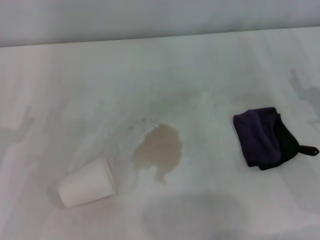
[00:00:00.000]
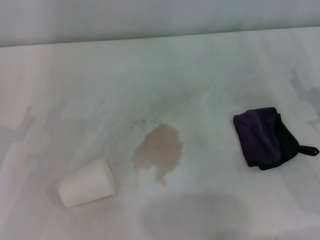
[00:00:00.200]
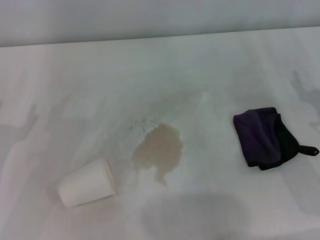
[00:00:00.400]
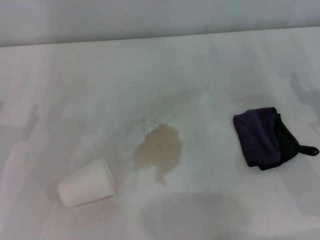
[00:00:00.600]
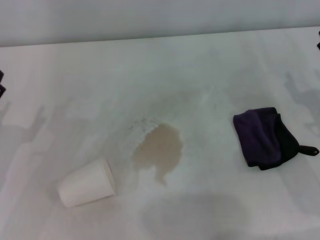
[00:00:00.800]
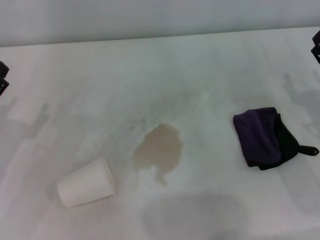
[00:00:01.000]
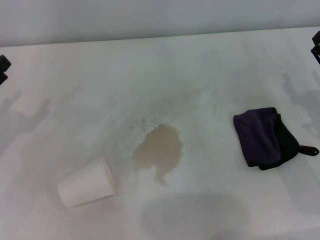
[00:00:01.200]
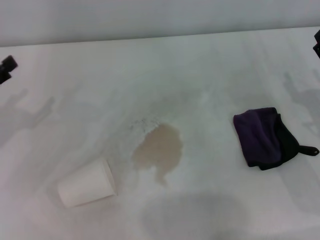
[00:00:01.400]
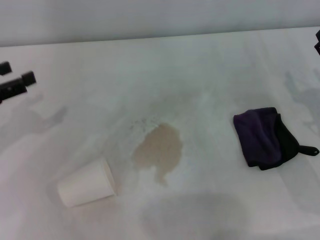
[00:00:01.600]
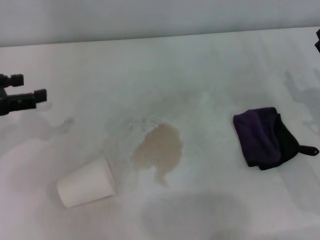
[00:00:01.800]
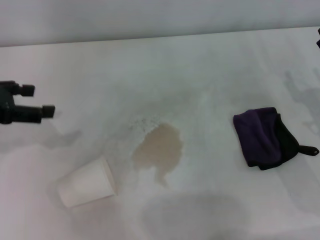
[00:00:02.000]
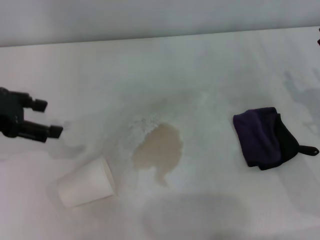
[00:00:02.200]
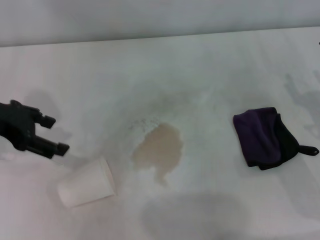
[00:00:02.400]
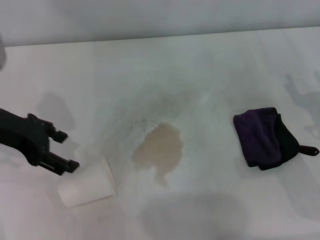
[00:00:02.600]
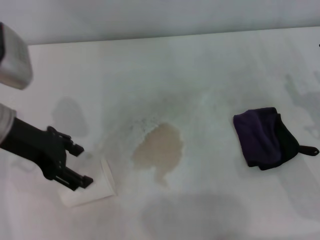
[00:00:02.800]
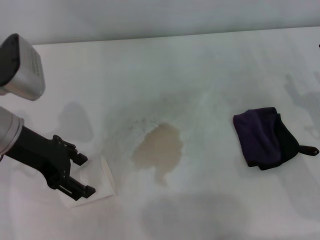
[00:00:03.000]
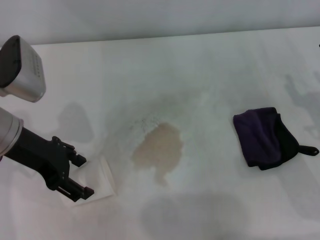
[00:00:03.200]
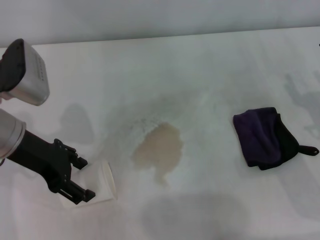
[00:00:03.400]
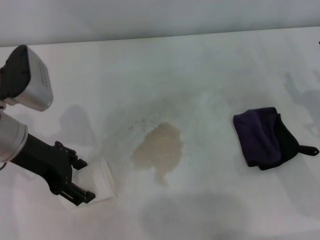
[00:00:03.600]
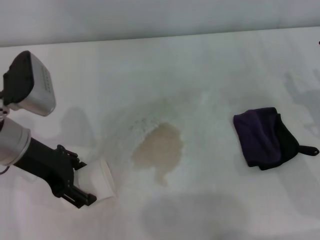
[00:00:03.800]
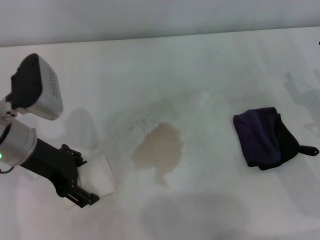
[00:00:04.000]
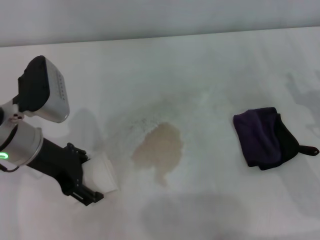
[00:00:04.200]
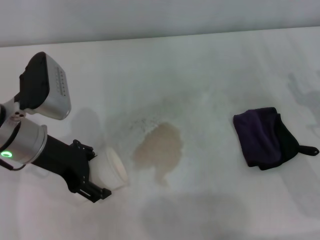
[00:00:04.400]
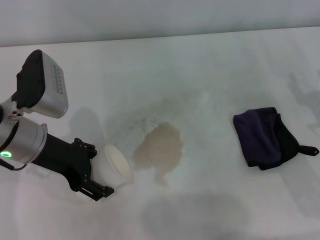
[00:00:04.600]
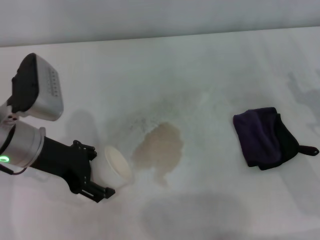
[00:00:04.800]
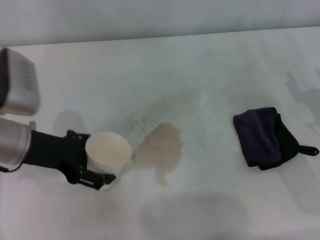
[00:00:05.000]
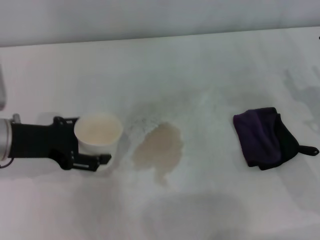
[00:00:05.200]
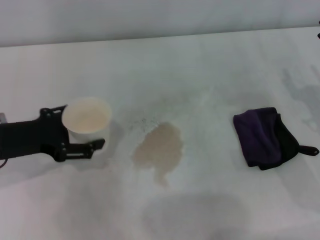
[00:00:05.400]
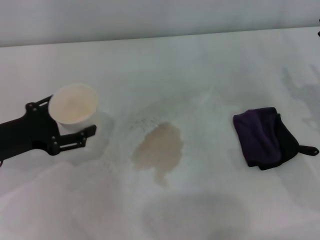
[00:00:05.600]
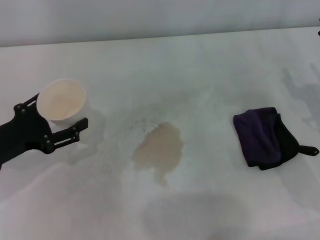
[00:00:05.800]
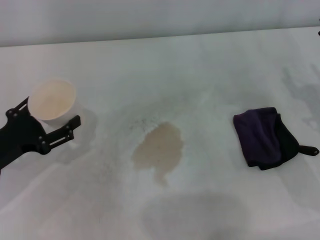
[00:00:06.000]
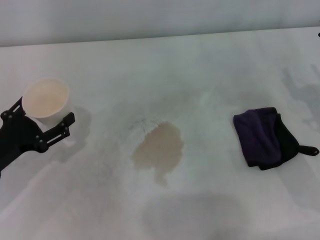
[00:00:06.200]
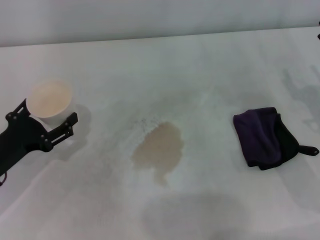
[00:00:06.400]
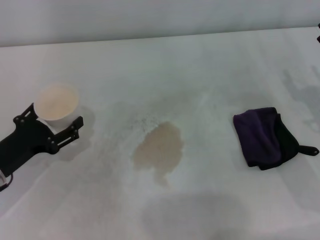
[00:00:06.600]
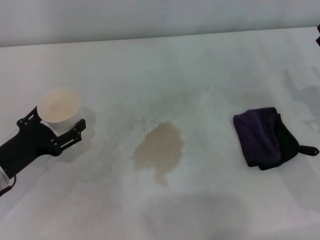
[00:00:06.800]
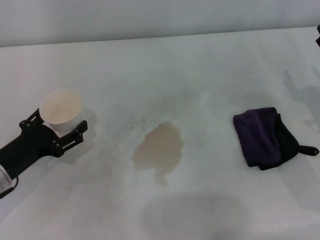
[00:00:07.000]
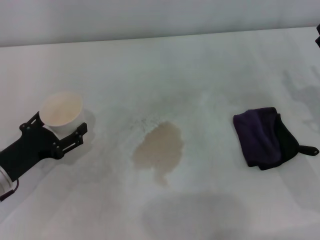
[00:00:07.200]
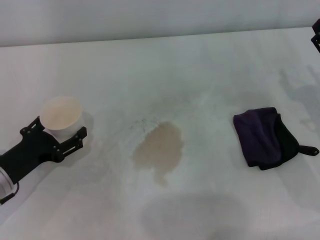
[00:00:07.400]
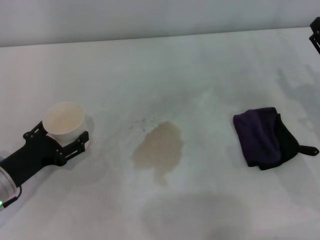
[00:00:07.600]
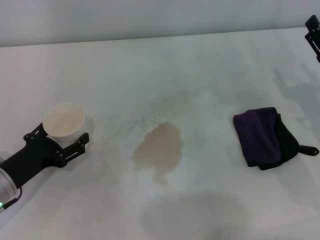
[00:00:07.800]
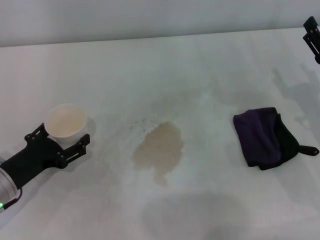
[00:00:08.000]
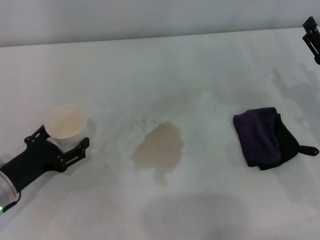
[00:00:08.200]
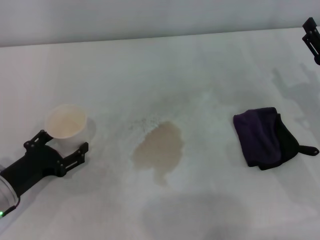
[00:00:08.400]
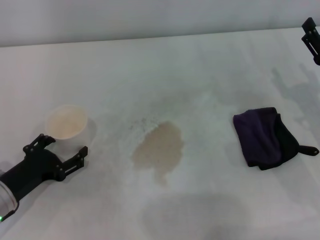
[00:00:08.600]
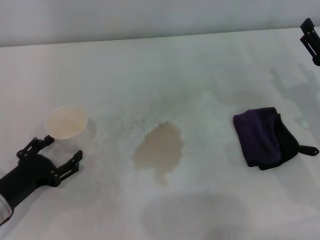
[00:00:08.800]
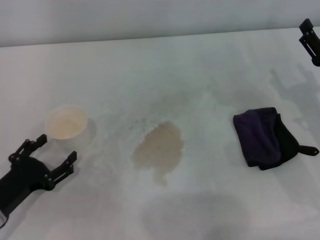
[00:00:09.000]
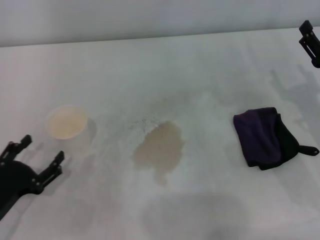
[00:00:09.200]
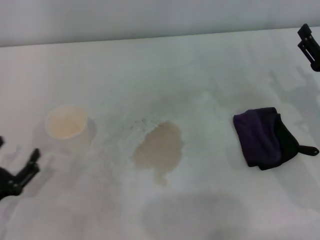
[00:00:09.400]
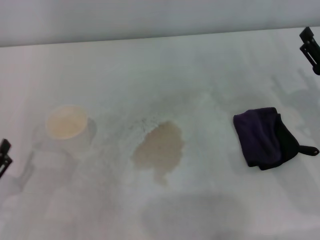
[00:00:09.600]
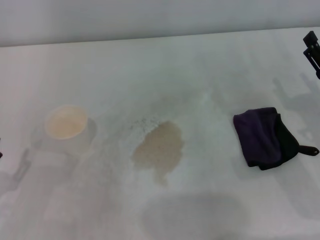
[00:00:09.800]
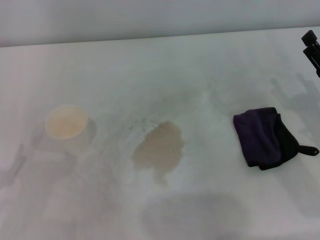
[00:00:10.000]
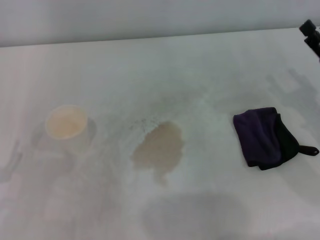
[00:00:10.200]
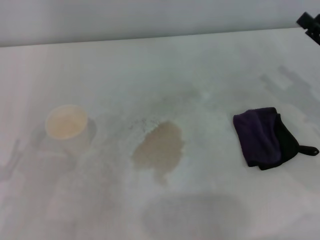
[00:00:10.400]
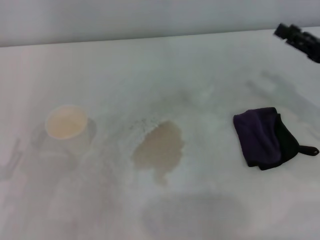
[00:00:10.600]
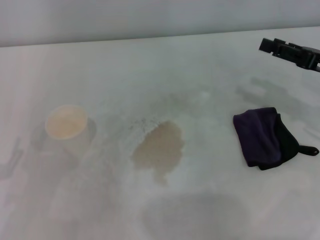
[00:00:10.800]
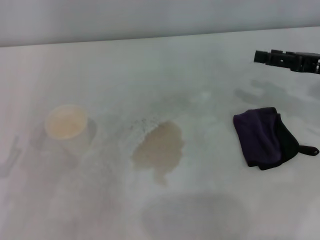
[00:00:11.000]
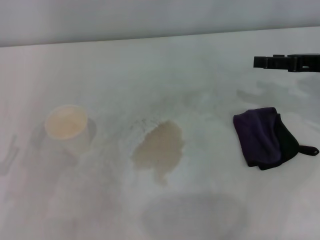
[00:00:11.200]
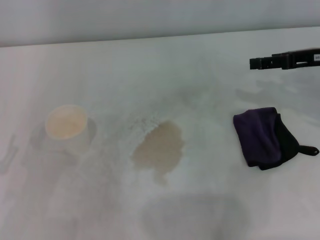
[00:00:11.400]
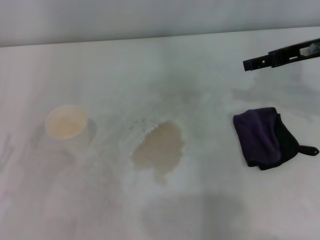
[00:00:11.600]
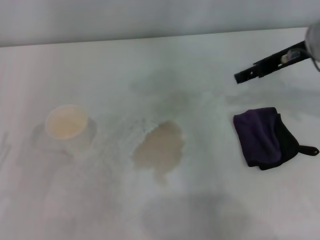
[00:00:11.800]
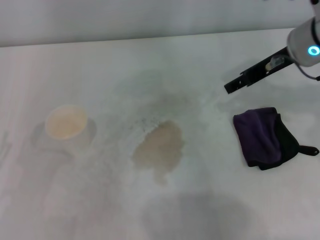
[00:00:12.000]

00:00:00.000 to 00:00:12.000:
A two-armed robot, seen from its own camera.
Step, 00:00:00.000 to 00:00:04.200: Grasp the paper cup with the left gripper.
Step, 00:00:04.400 to 00:00:08.200: Stand the paper cup upright with the left gripper.
00:00:00.000 to 00:00:01.600: The left gripper is displaced forward and upward by some 10 cm.
00:00:01.600 to 00:00:03.000: The left gripper goes approximately 10 cm to the right.
00:00:03.000 to 00:00:04.400: The grippers stay close to where they were, moving slightly.
00:00:04.400 to 00:00:06.000: The left gripper is displaced to the left, backward and downward by about 15 cm.
00:00:06.000 to 00:00:07.600: The left gripper ends up about 5 cm from where it was.
00:00:07.600 to 00:00:09.000: The grippers stay close to where they were, moving slightly.
00:00:09.000 to 00:00:10.400: The left gripper changes place by about 5 cm.
00:00:10.400 to 00:00:12.000: The right gripper travels to the left, upward and forward by approximately 20 cm.

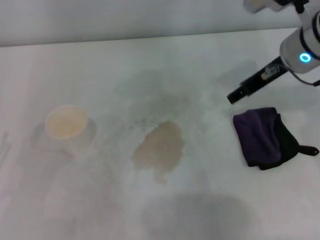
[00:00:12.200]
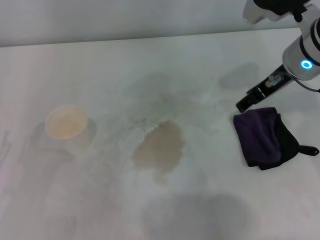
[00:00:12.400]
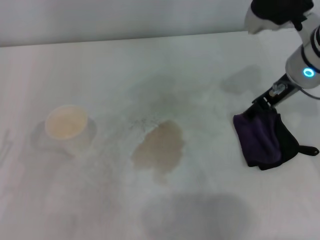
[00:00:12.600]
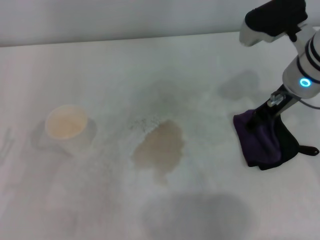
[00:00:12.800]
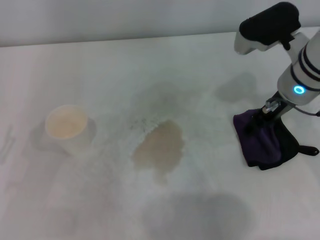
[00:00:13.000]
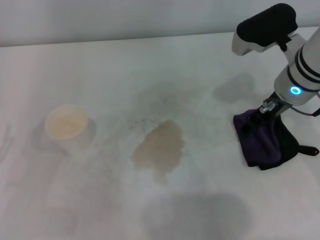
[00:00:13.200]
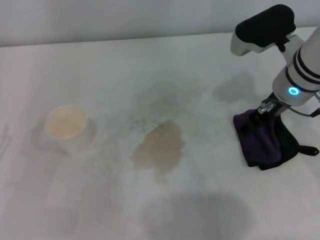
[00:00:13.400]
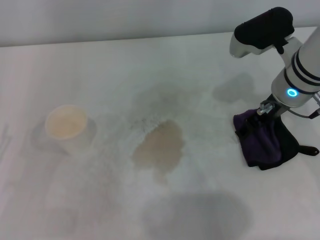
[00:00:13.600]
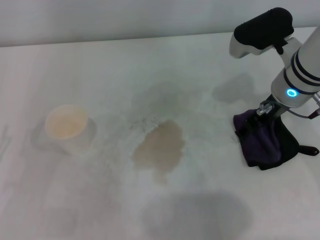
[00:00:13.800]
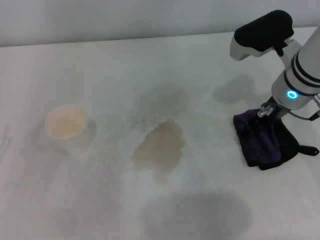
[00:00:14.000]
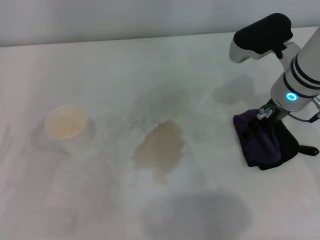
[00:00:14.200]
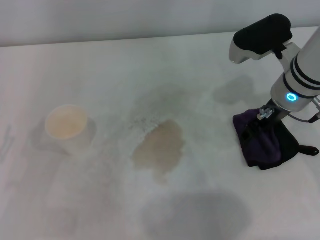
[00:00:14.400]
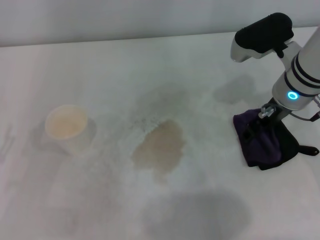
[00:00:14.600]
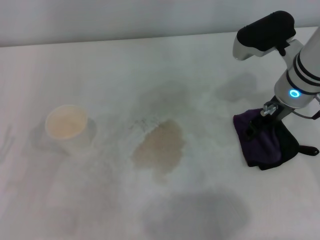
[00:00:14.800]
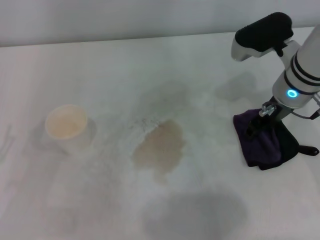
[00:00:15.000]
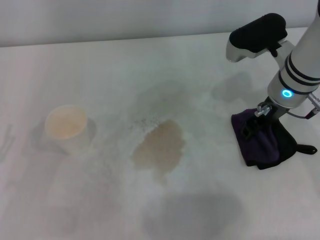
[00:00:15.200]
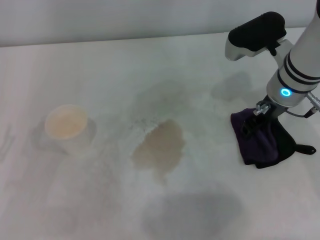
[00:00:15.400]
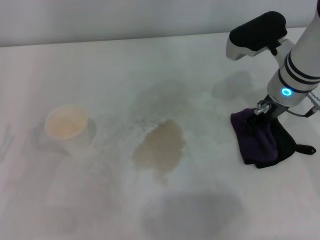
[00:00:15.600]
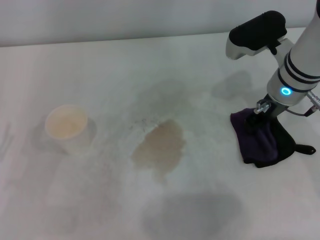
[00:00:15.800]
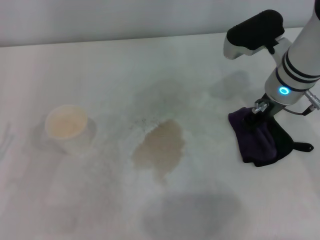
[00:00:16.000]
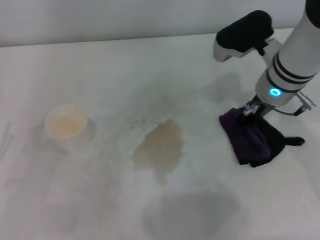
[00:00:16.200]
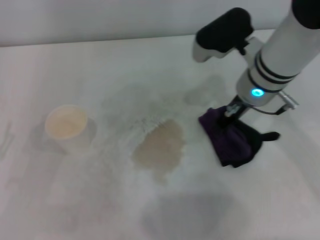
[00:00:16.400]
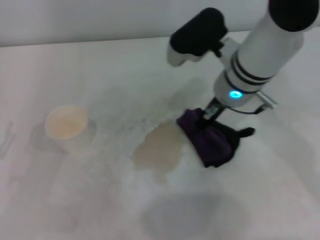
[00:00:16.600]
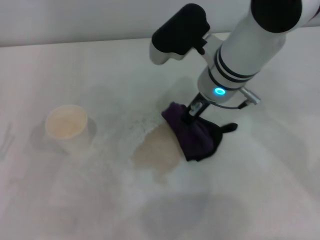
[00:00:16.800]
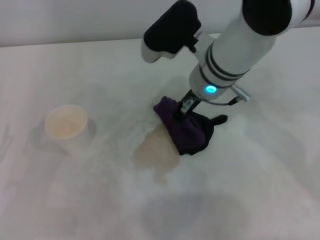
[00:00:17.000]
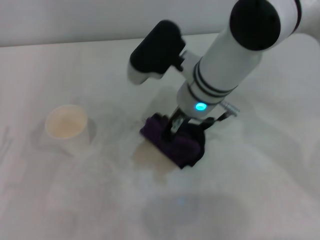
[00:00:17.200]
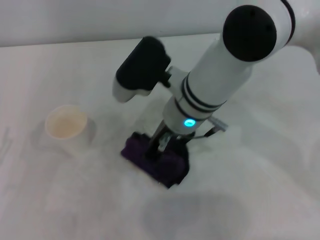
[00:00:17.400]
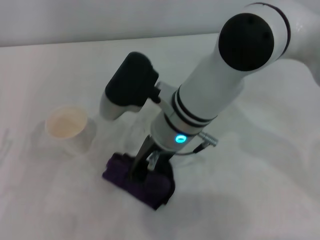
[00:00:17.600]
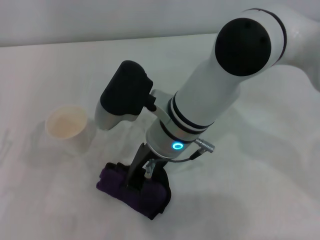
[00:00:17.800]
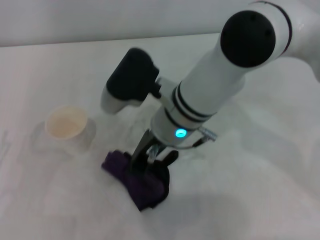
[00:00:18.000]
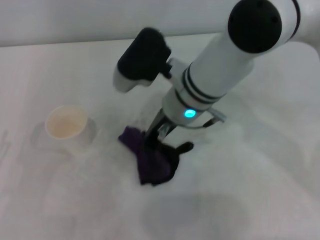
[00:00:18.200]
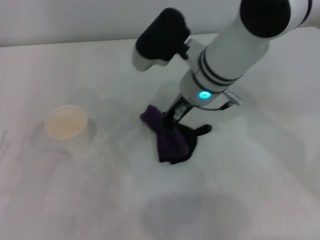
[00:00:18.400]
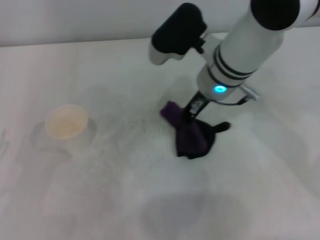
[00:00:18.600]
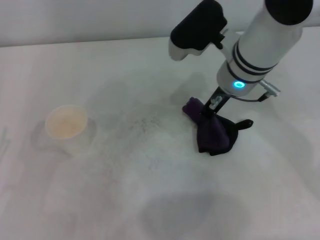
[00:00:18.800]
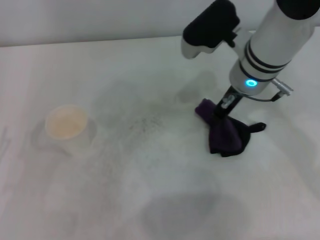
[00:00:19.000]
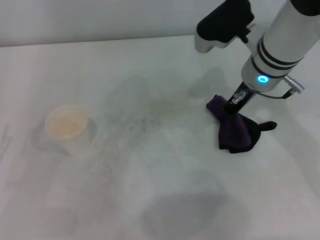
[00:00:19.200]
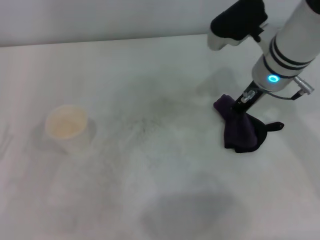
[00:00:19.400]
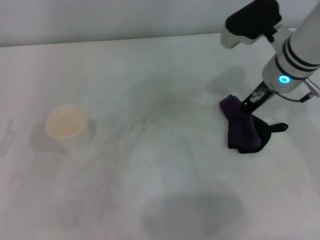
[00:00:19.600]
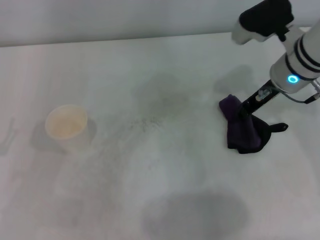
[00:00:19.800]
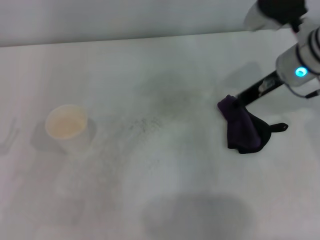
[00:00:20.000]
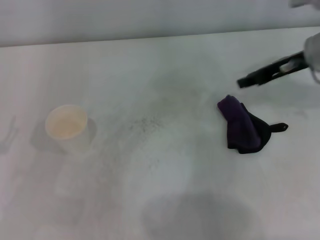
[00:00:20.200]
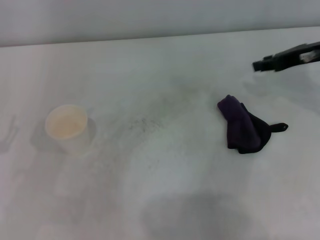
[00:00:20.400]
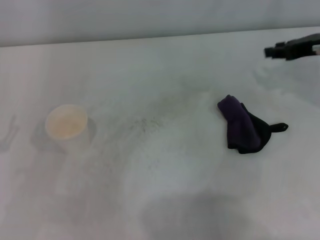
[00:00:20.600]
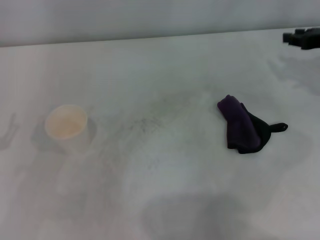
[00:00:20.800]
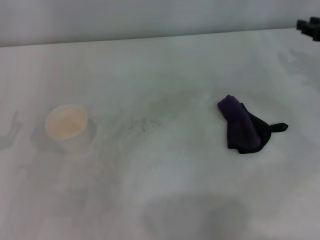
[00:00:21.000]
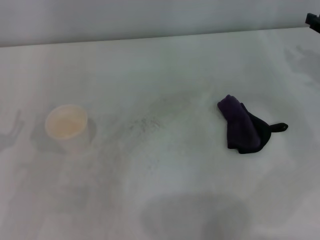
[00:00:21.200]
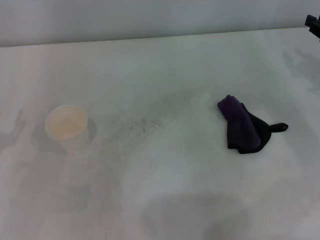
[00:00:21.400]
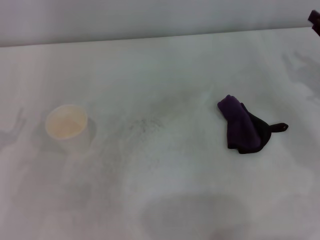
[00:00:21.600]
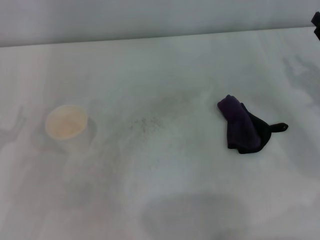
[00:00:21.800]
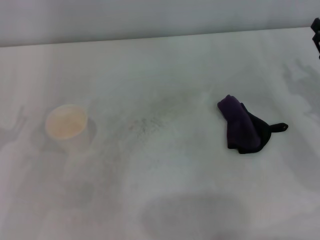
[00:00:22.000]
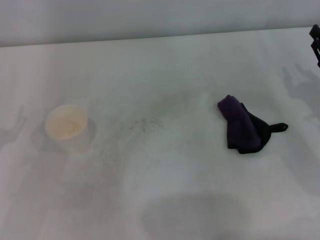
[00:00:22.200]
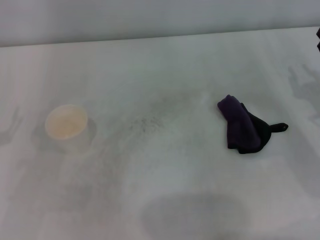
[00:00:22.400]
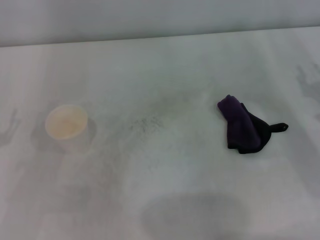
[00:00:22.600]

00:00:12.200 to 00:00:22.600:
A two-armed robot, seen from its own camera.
Step, 00:00:12.200 to 00:00:15.000: Grasp the rag with the right gripper.
Step, 00:00:15.200 to 00:00:19.000: Wipe the stains off the table with the right gripper.
Step, 00:00:19.200 to 00:00:19.800: Place the rag on the table with the right gripper.
00:00:12.200 to 00:00:13.600: The grippers stay close to where they were, moving slightly.
00:00:13.600 to 00:00:15.200: The right gripper closes up.
00:00:15.200 to 00:00:16.600: The right gripper shifts roughly 10 cm to the left, and closes its fingers.
00:00:16.600 to 00:00:18.200: The right gripper goes roughly 5 cm to the left.
00:00:18.200 to 00:00:19.600: The right gripper heads to the right, covering roughly 15 cm.
00:00:19.600 to 00:00:21.200: The right gripper moves to the right, about 20 cm.
